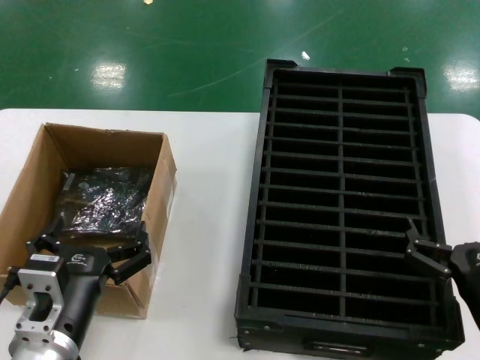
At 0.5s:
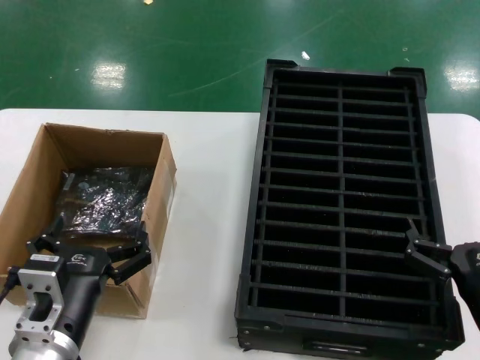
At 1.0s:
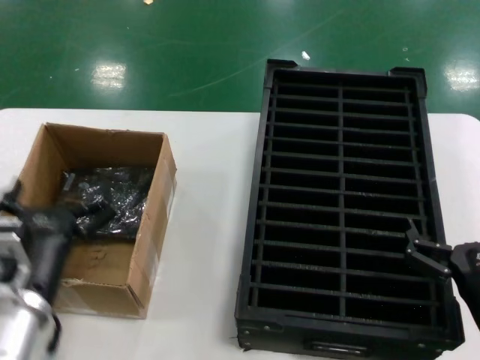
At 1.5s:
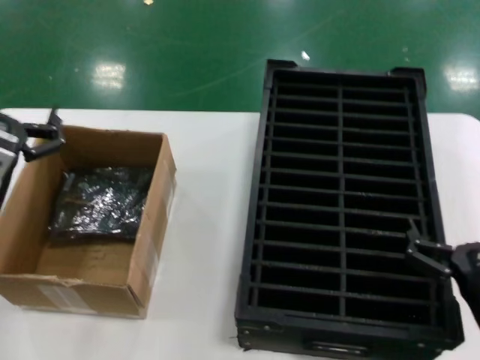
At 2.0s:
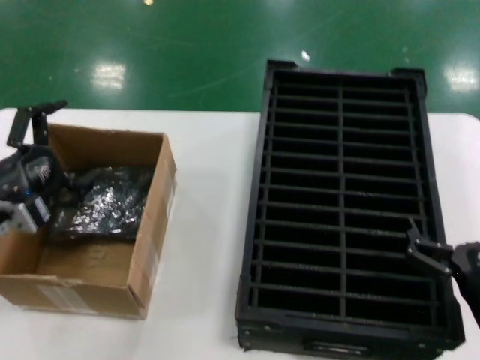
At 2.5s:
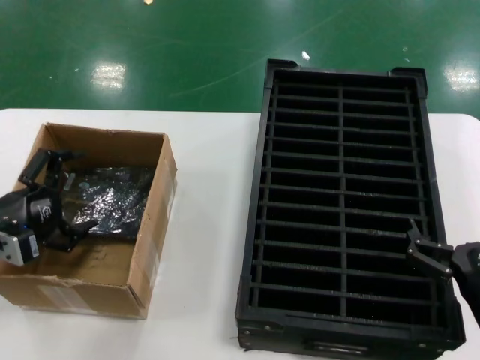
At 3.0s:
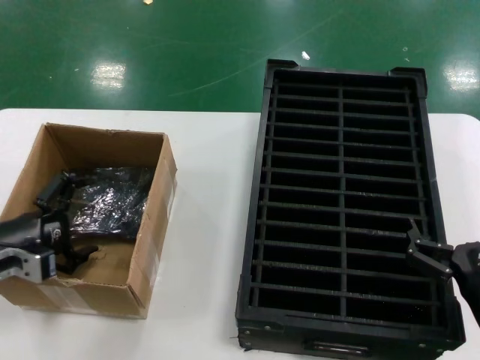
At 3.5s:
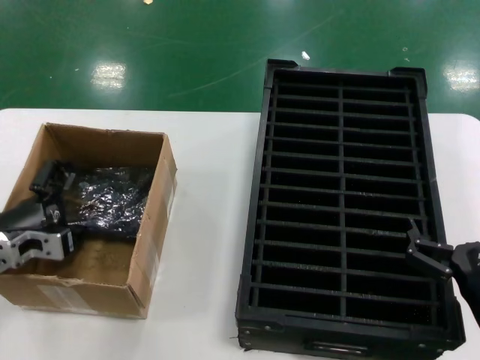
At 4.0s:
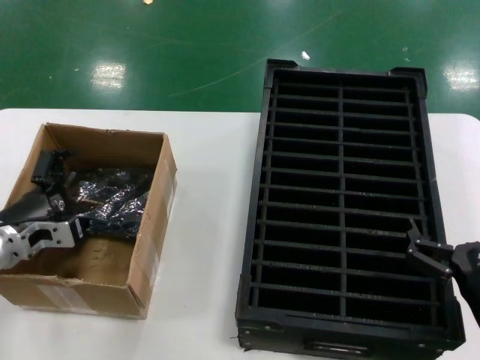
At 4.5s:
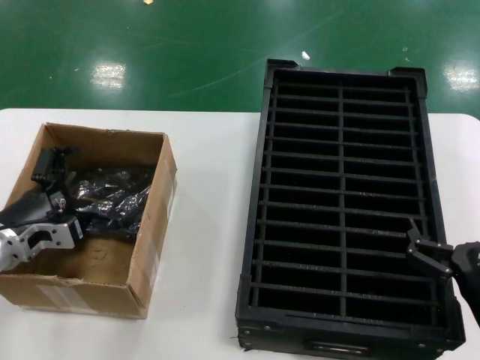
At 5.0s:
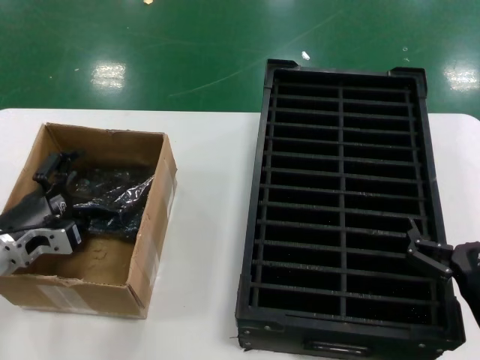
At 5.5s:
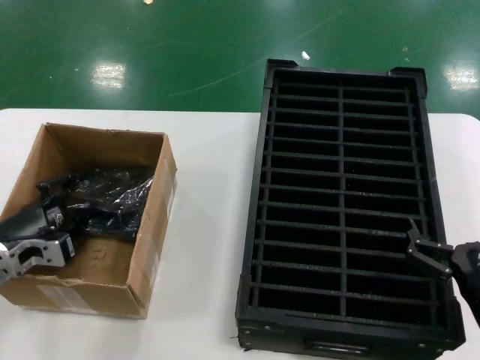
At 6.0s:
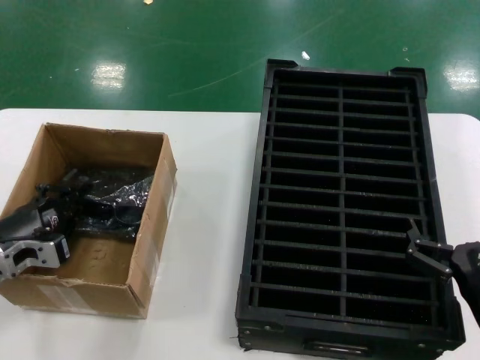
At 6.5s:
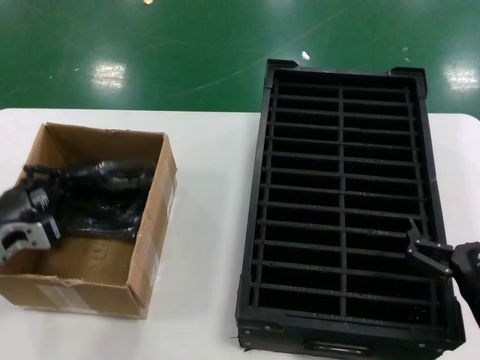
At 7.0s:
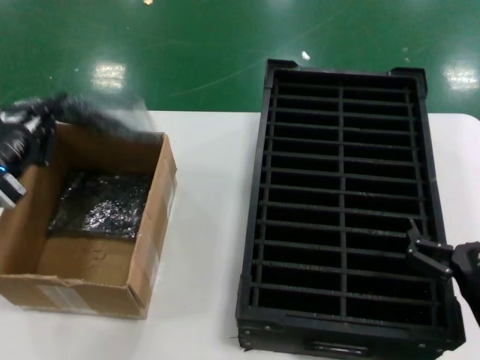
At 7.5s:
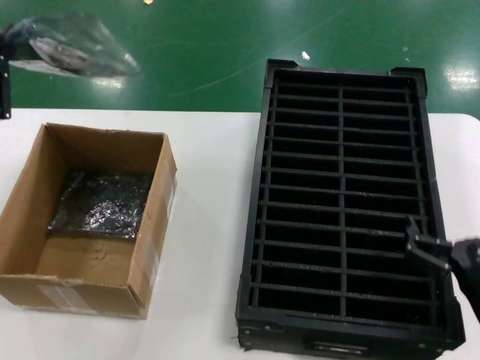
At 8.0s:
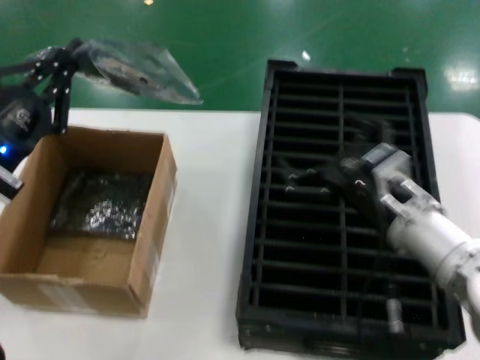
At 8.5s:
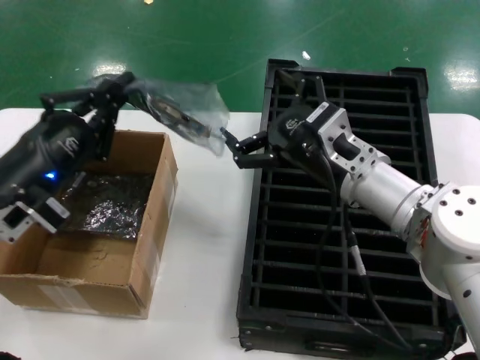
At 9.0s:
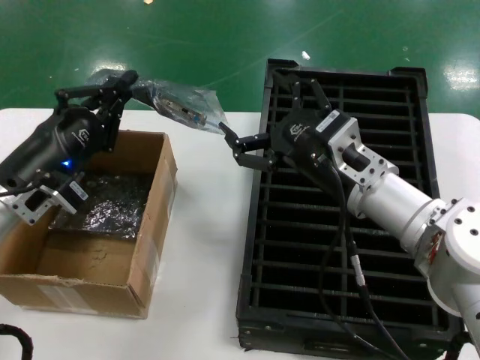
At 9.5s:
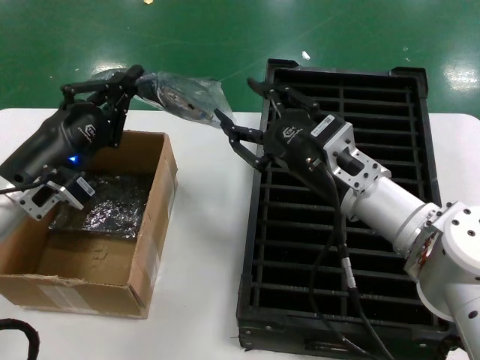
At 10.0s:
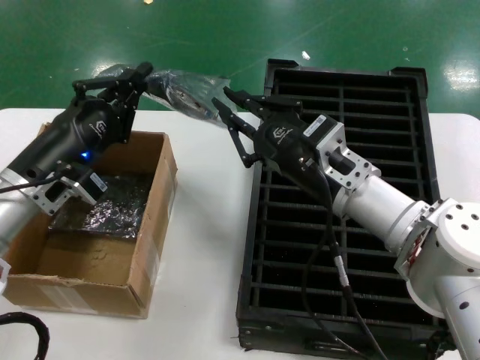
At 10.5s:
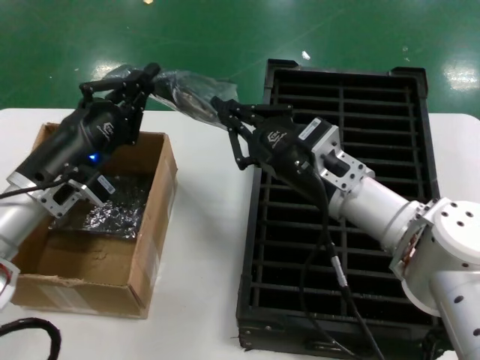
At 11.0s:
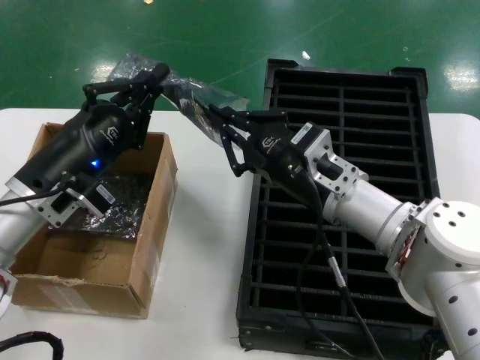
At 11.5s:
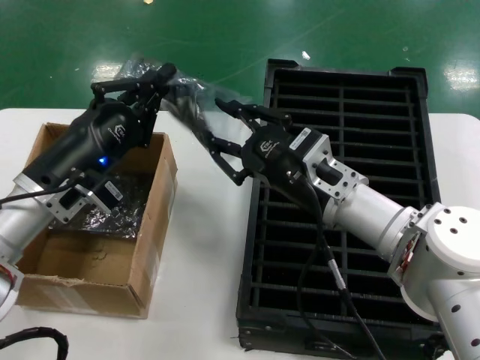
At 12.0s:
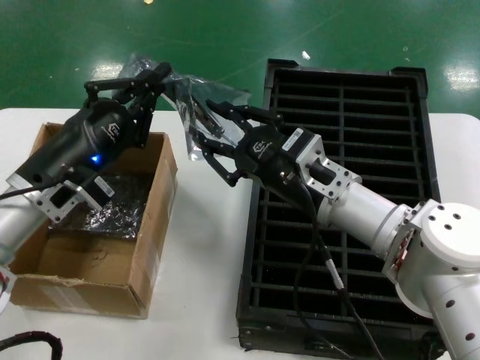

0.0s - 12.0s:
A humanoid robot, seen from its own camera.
Task of the whole recording: take out graphics card from box remove packaging put into black container.
Step, 0.0s - 6.0s: Grasp the bag.
Step, 6.5s - 8.0s: Lift the bag.
0.0s - 2.0s: The left hand travels to the left, forward and upward by about 25 cm.
2.0s - 4.0s: The left hand travels downward by about 5 cm.
4.0s - 6.0s: The hands move only a little.
6.0s - 8.0s: The right hand heads forward, upward and to the left, covering about 15 cm; the left hand goes some 10 cm upward.
8.0s - 10.0s: The right hand shifts roughly 5 cm to the left. The left hand goes about 5 cm forward.

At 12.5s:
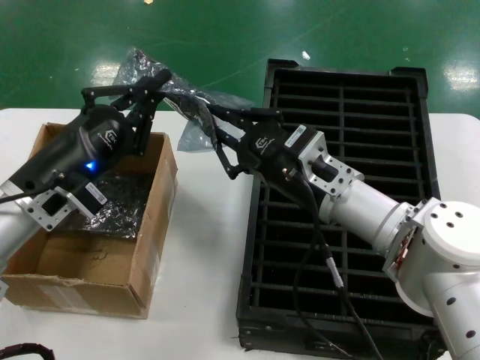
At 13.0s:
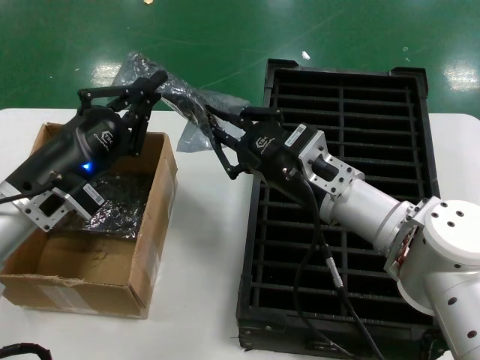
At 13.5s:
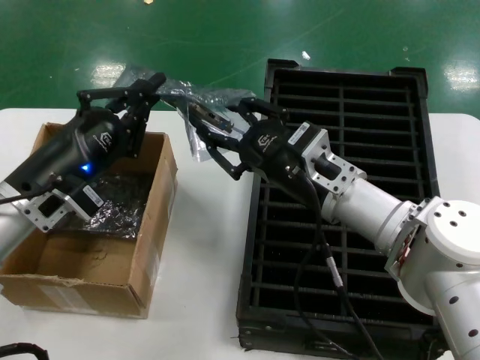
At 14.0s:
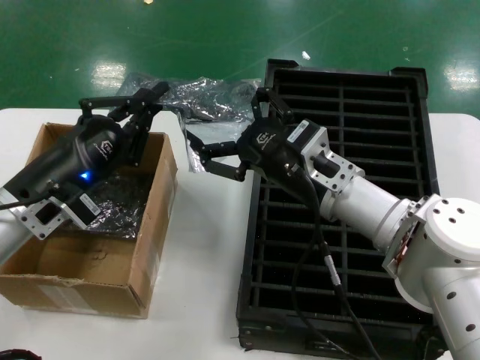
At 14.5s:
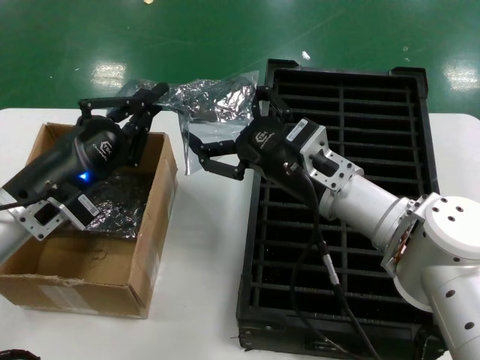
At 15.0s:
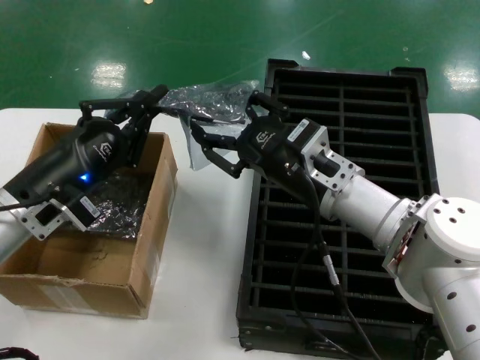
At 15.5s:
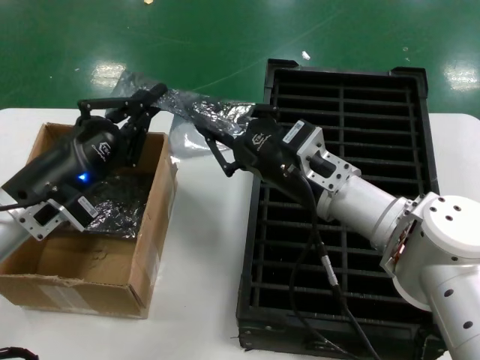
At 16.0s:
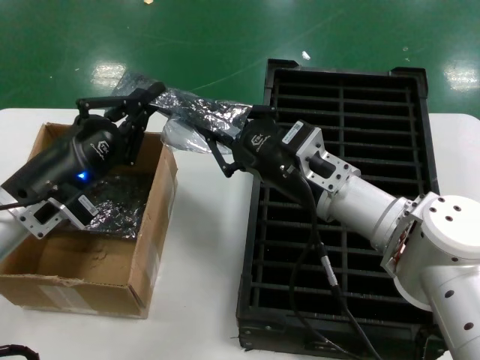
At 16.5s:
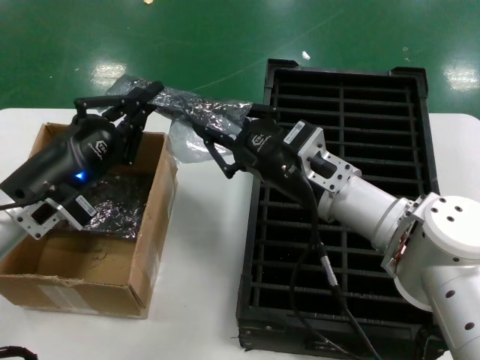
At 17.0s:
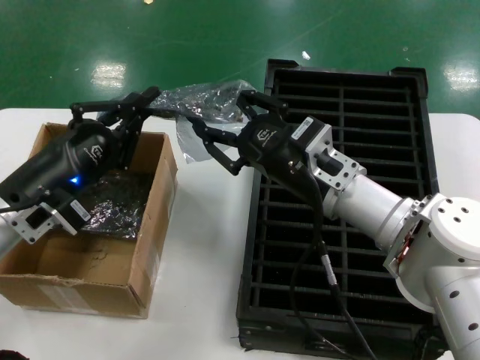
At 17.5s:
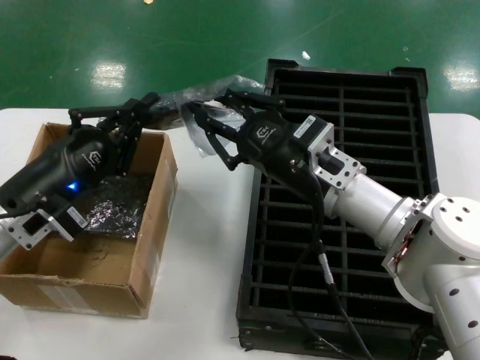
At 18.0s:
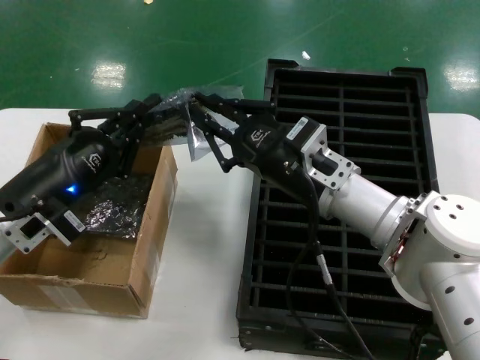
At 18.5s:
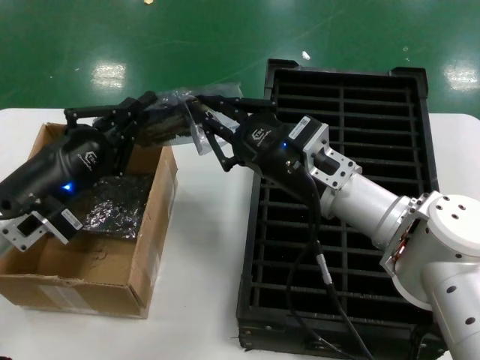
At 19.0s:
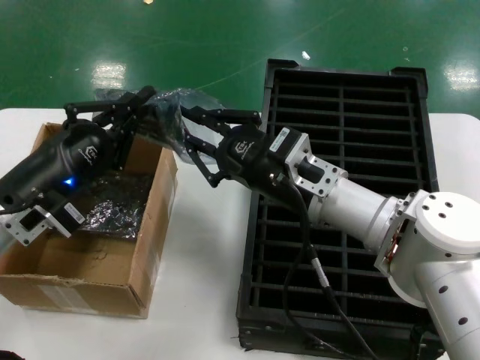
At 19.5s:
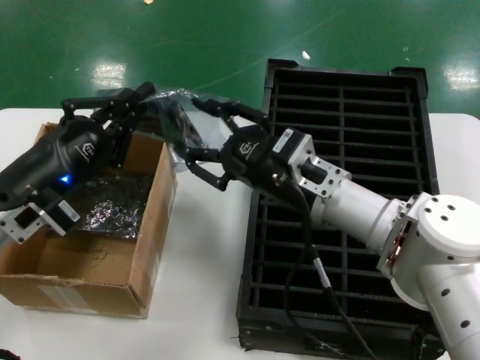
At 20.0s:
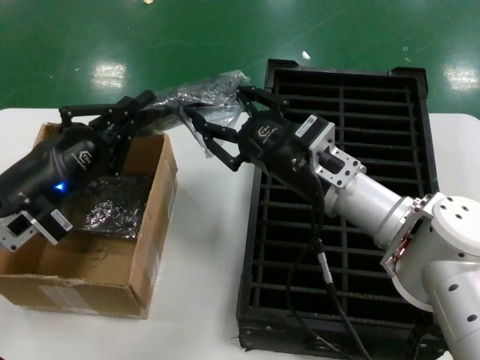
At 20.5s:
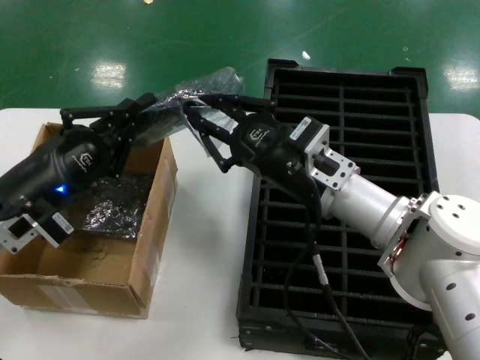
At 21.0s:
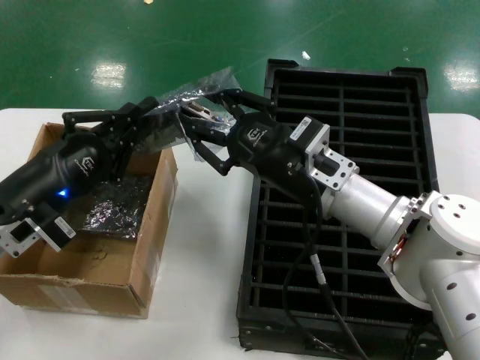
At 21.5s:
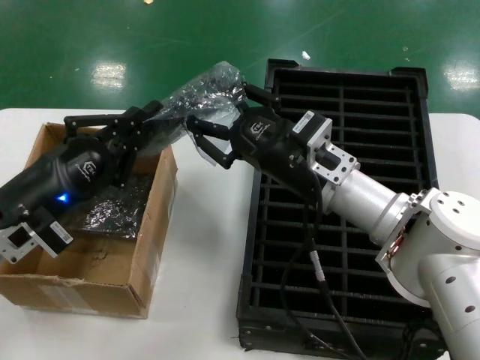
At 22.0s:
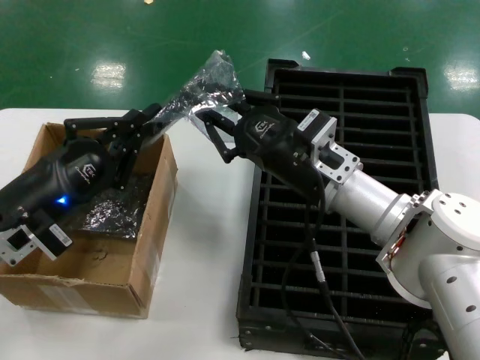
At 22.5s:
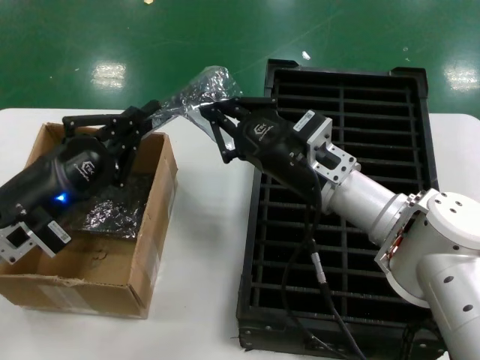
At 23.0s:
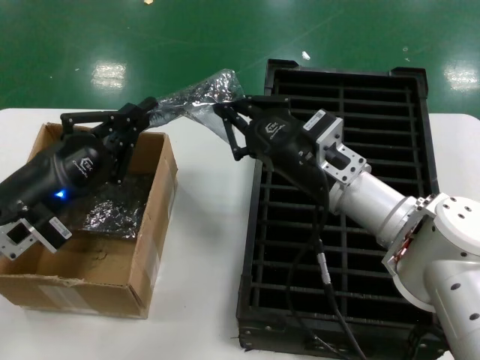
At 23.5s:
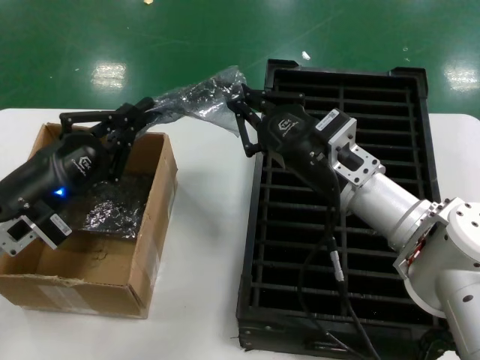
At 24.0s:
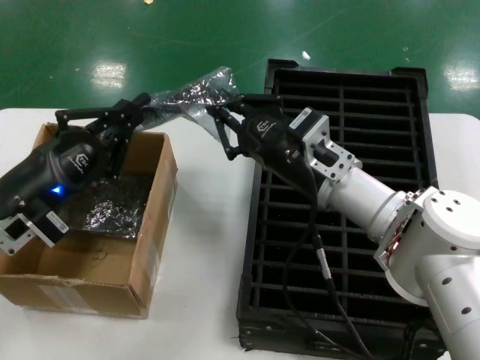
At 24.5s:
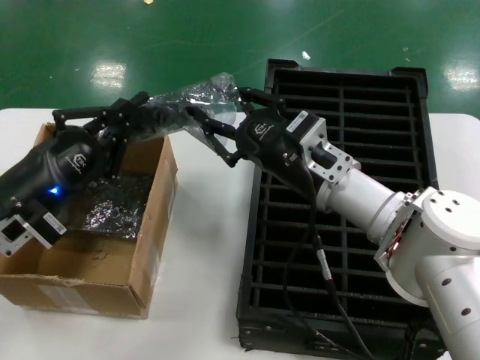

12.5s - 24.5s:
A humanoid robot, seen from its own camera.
Task of the whole recording: take out graphics card from box remove packaging put into black container.
12.5s - 14.5s: The hands make only small movements.
14.5s - 16.5s: Neither hand changes place.
16.5s - 20.5s: The hands move only a little.
20.5s - 22.5s: Neither hand changes place.
22.5s - 24.5s: There are only small adjustments of the hands.

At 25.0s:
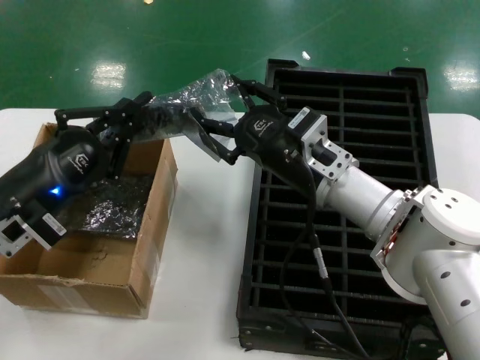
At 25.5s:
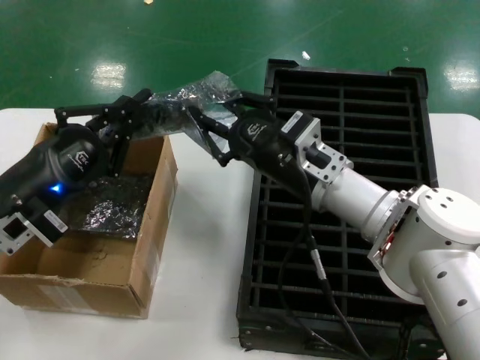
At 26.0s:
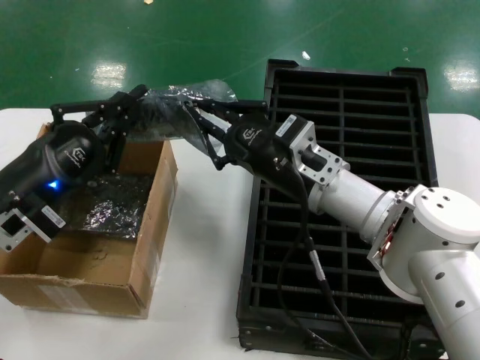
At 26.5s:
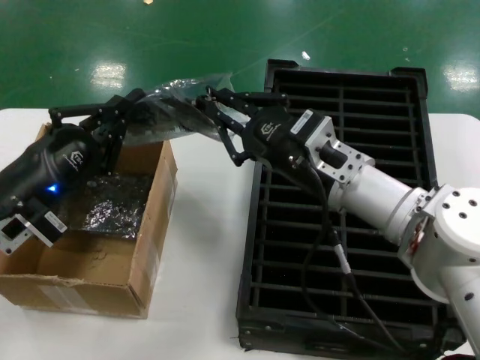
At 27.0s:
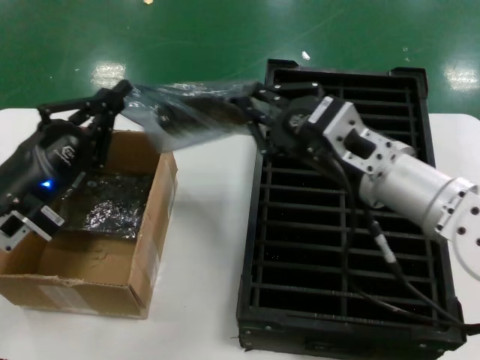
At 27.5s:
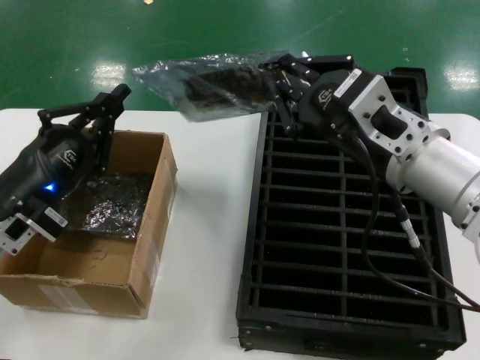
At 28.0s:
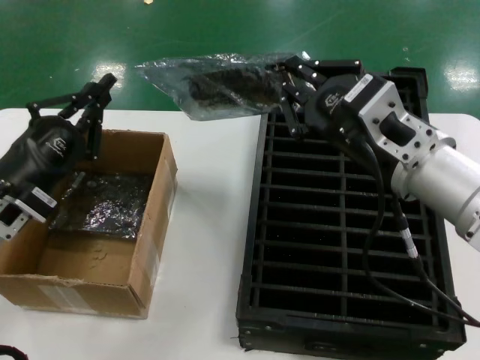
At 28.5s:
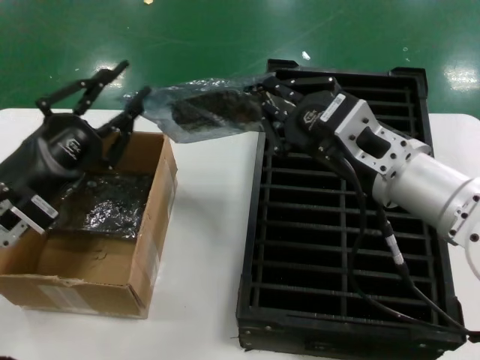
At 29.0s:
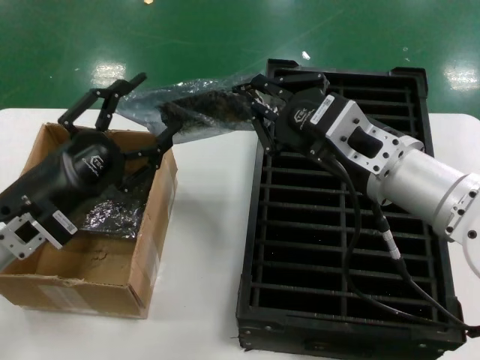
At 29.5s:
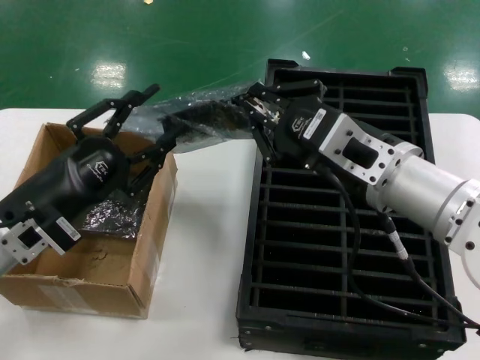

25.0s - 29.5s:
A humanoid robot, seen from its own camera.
Task of the whole recording: take out graphics card from box remove packaging put into black container.
25.0s - 27.0s: The right hand goes approximately 10 cm backward and upward.
27.0s - 29.5s: The hands stay close to where they were, moving slightly.
